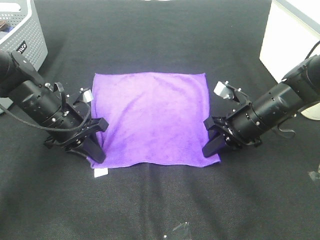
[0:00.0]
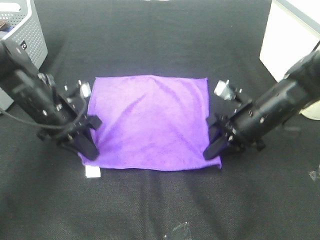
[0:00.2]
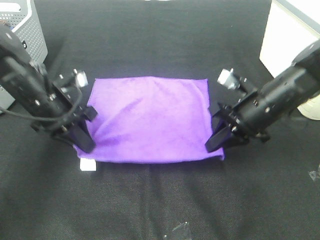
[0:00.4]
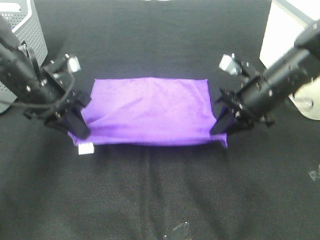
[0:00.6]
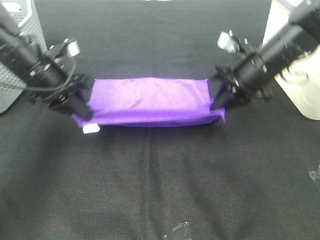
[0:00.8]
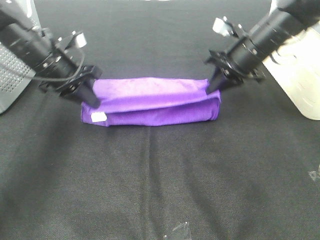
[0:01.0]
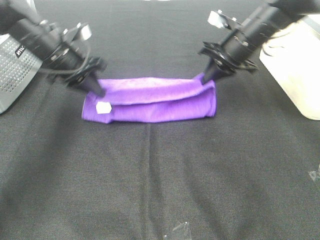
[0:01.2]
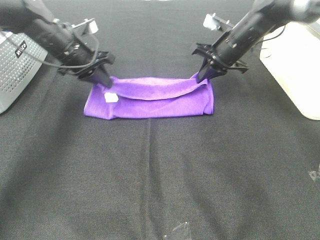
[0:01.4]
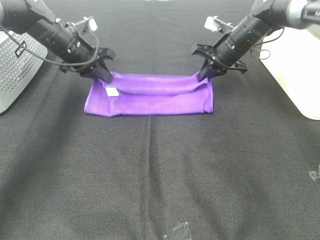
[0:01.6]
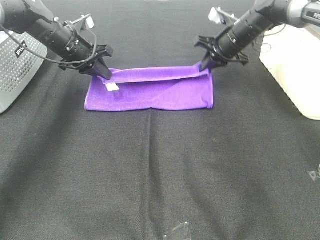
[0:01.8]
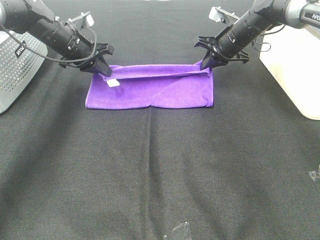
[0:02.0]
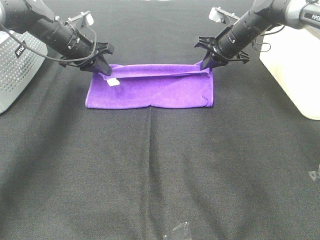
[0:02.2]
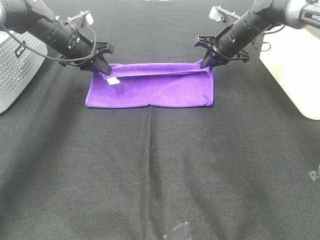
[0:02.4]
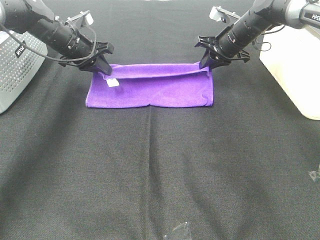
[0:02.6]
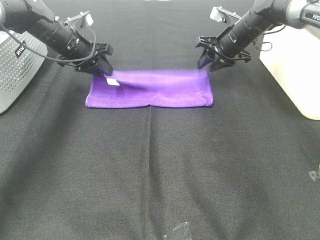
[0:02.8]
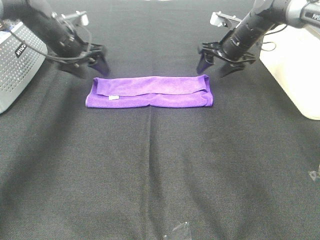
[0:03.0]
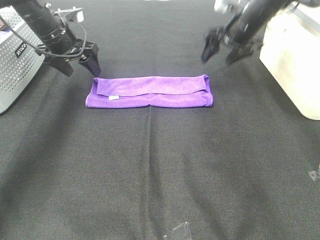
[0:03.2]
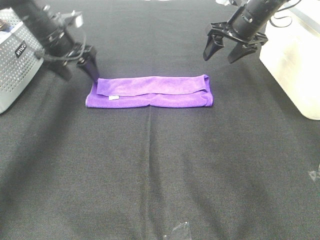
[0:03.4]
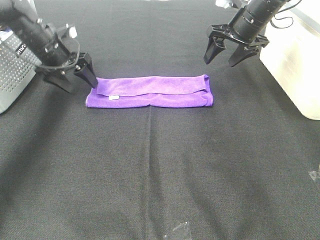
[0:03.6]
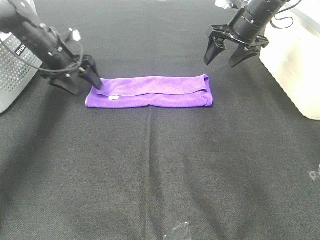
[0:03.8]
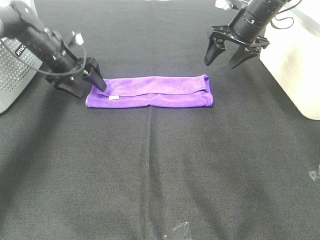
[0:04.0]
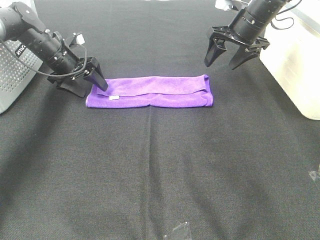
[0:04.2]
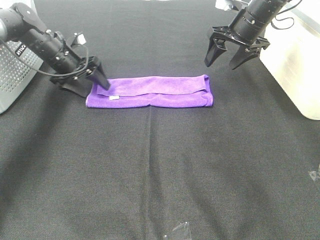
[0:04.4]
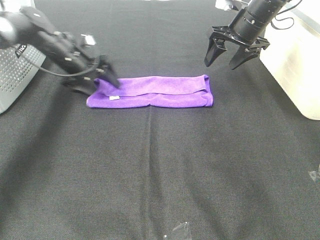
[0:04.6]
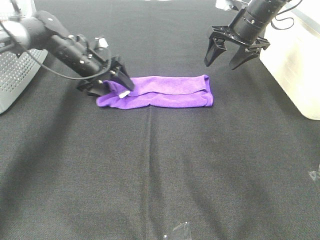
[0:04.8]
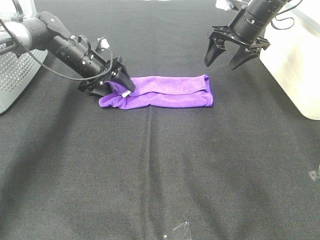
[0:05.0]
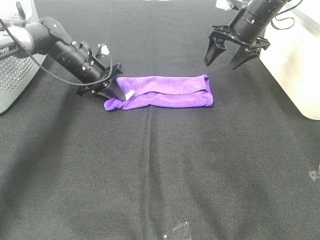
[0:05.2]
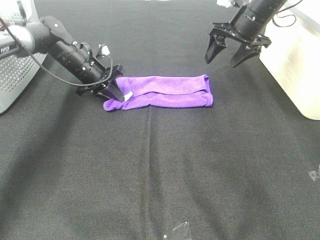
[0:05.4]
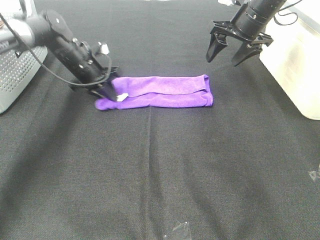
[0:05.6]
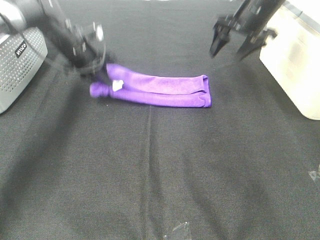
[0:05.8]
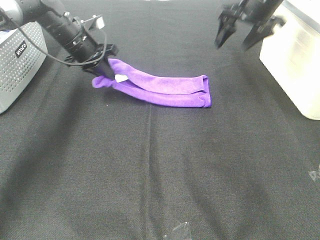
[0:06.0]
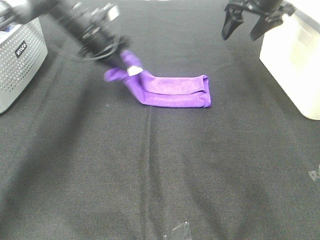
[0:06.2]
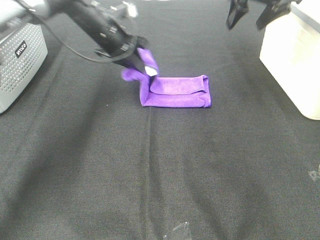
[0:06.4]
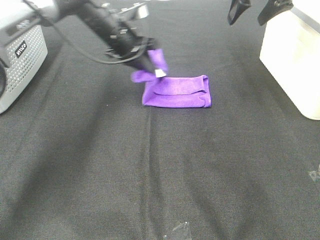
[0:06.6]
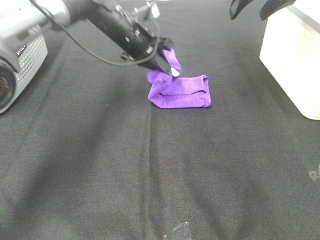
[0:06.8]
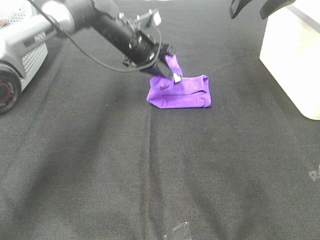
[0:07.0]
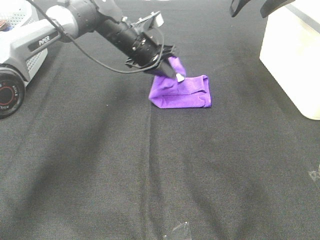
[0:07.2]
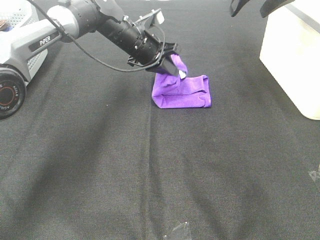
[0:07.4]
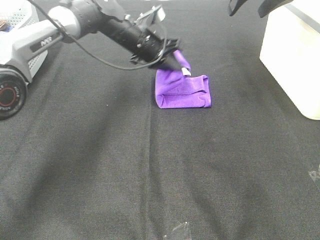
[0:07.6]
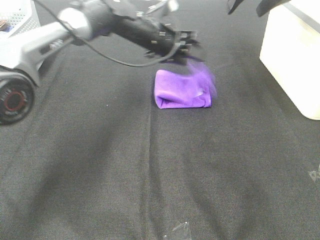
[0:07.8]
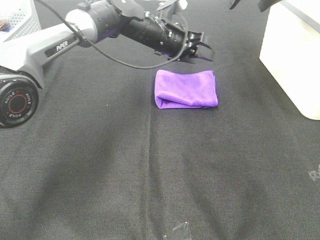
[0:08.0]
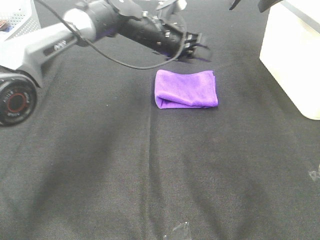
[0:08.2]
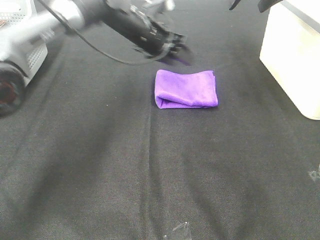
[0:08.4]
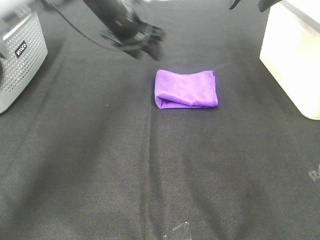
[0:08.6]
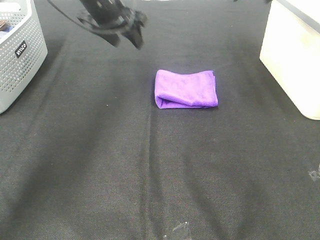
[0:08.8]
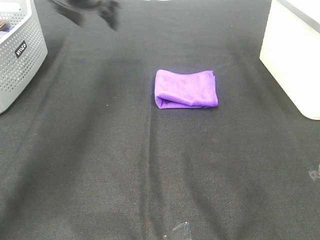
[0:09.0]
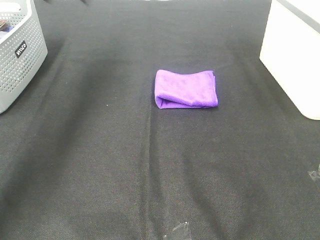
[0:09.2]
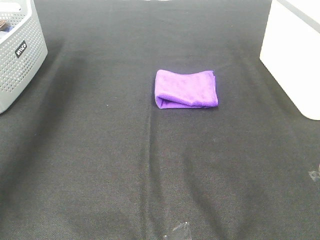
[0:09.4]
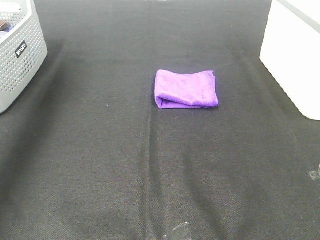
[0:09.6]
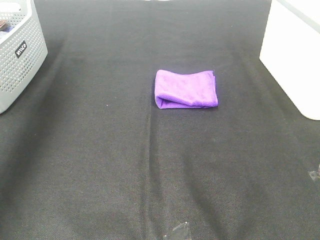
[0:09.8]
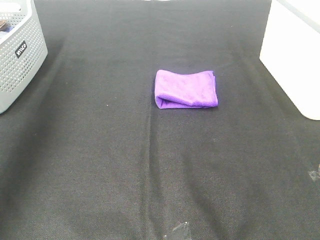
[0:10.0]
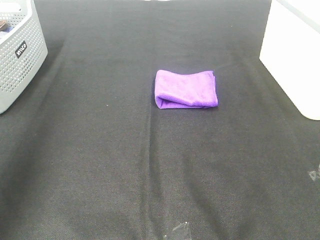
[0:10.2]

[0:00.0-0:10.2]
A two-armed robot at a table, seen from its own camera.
Task of the whole recording: Fold towels.
Step, 0:00.0 to 0:02.6: Left hand: fold the purple towel up.
Step, 0:00.0 to 0:02.6: Right hand: fold the purple towel up.
Step, 0:02.8 to 0:07.6: Left hand: fold the purple towel from left to right.
0:00.0 to 0:01.4: The right gripper shifts some 20 cm forward; the left gripper moves forward and upward, approximately 15 cm.
0:01.4 to 0:03.0: The left gripper opens its fingers. The right gripper opens up.
0:03.0 to 0:04.4: The left gripper moves downward, about 5 cm. The right gripper ends up some 5 cm from where it was.
0:04.4 to 0:05.8: The left gripper moves some 5 cm, and closes its fingers.
0:05.8 to 0:07.2: The right gripper heads upward, covering about 10 cm. The left gripper moves to the right, about 15 cm.
0:07.2 to 0:08.8: The left gripper heads upward and to the left, covering roughly 15 cm, and opens its fingers.
0:08.8 to 0:10.2: The left gripper is displaced backward, to the left and upward by about 40 cm, while the right gripper goes roughly 35 cm backward.

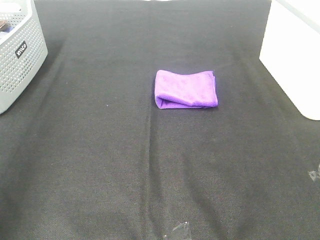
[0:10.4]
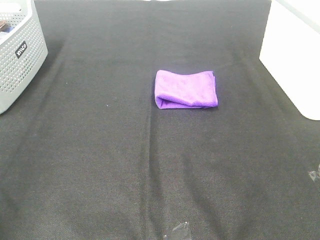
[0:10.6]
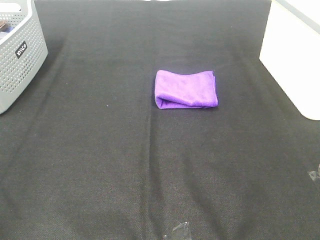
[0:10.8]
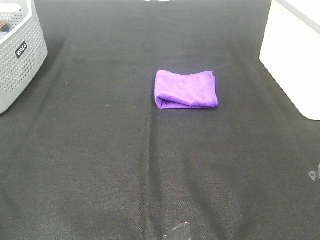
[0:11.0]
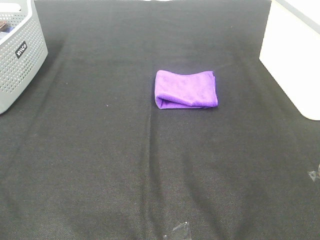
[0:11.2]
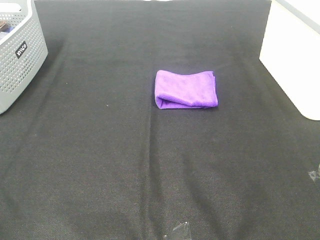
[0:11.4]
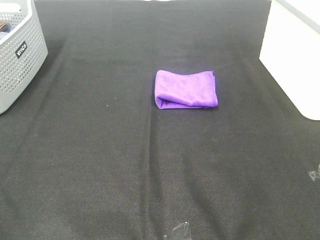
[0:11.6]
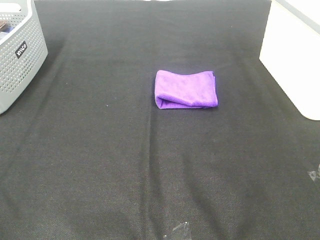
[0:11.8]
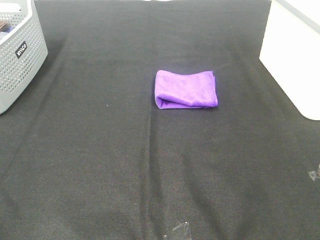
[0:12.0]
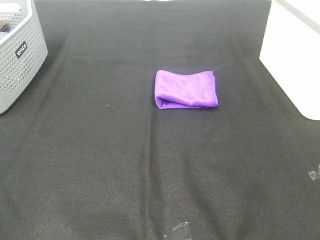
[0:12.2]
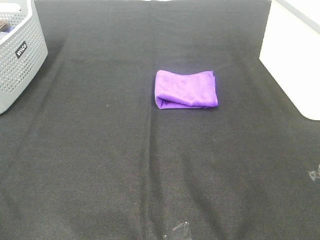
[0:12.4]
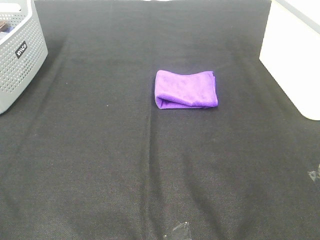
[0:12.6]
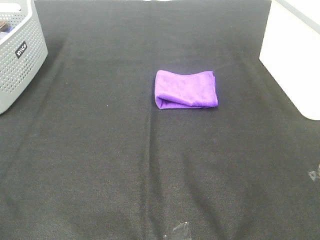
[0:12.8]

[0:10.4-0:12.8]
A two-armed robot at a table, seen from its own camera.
Task of the whole recording: Fold towels.
0:11.6 to 0:12.8: Neither gripper changes place.

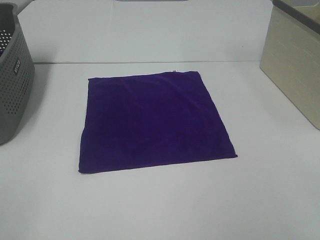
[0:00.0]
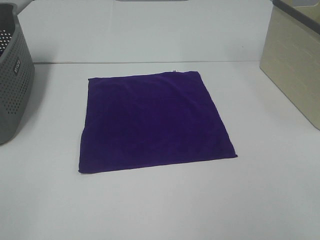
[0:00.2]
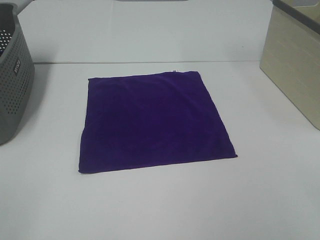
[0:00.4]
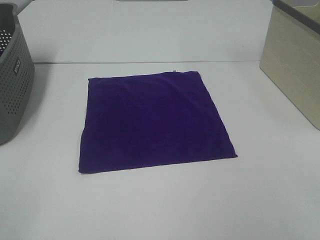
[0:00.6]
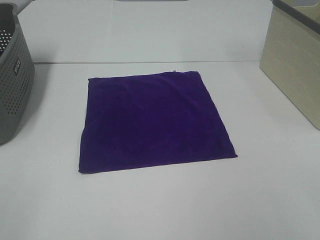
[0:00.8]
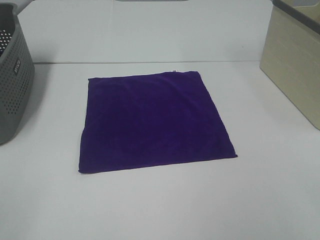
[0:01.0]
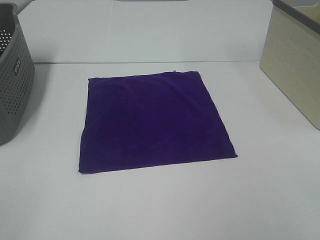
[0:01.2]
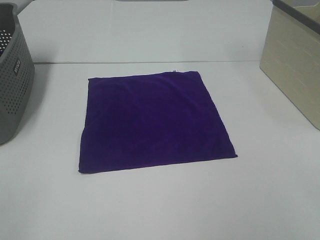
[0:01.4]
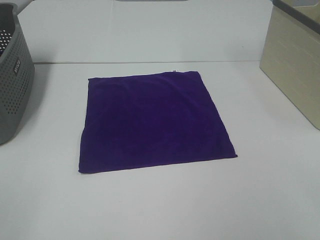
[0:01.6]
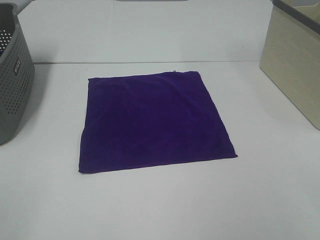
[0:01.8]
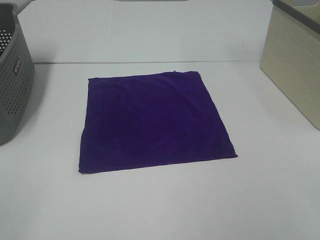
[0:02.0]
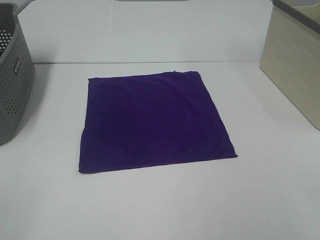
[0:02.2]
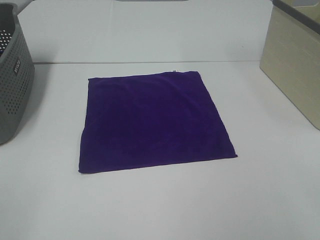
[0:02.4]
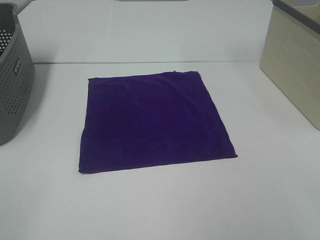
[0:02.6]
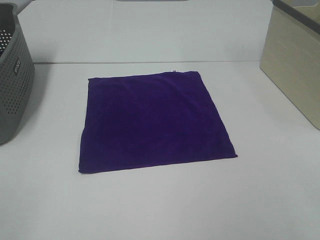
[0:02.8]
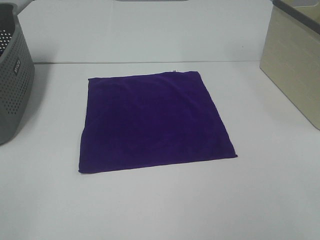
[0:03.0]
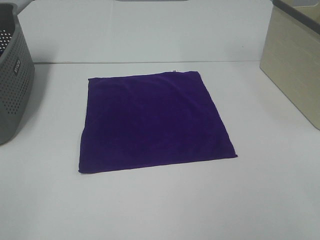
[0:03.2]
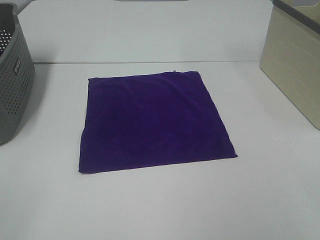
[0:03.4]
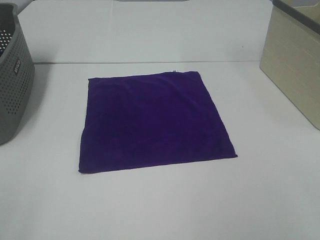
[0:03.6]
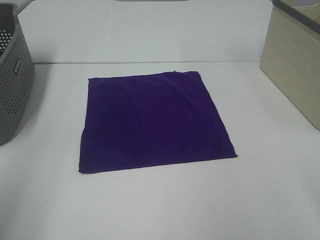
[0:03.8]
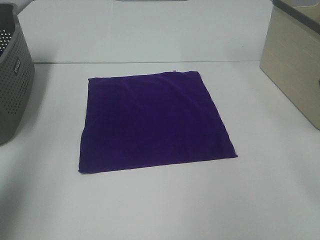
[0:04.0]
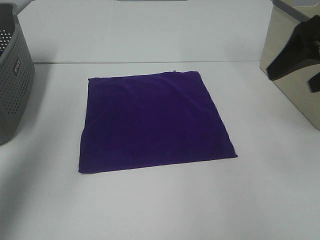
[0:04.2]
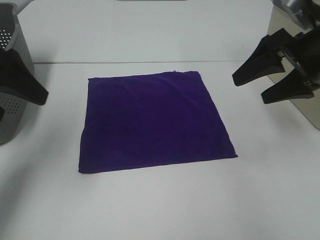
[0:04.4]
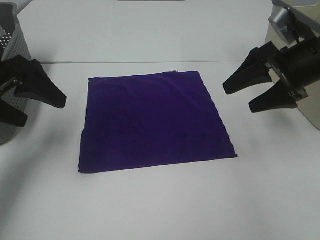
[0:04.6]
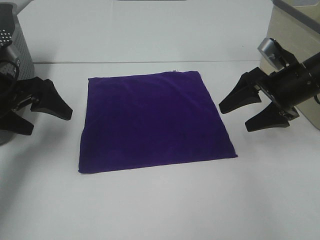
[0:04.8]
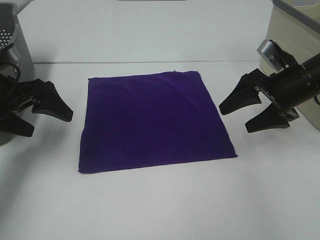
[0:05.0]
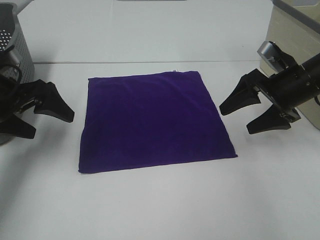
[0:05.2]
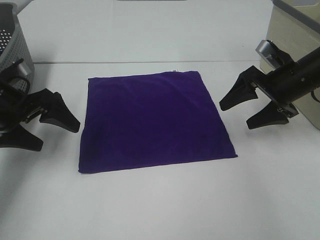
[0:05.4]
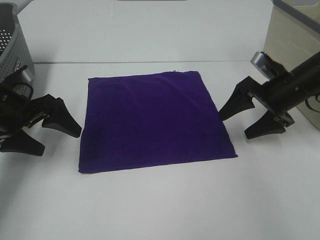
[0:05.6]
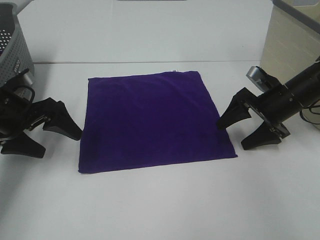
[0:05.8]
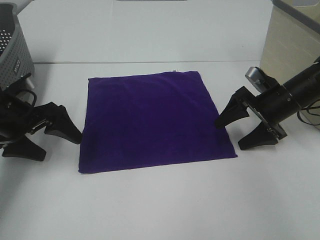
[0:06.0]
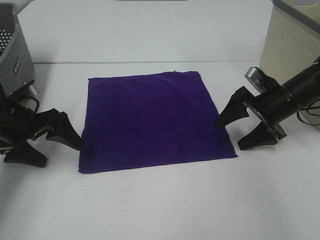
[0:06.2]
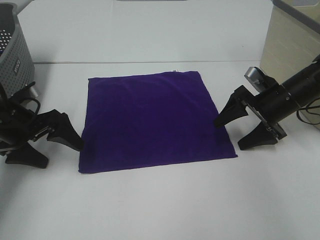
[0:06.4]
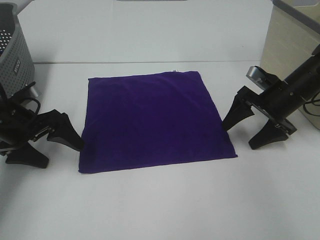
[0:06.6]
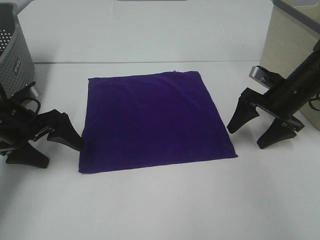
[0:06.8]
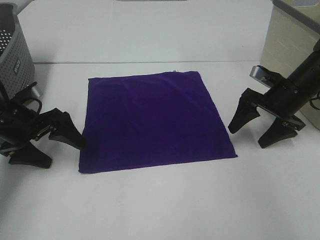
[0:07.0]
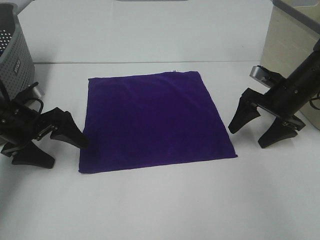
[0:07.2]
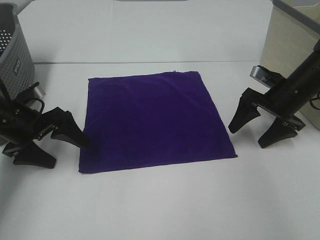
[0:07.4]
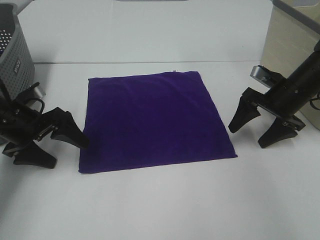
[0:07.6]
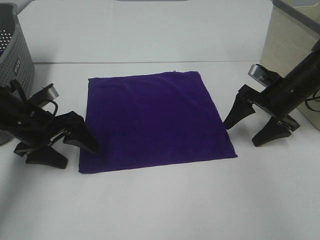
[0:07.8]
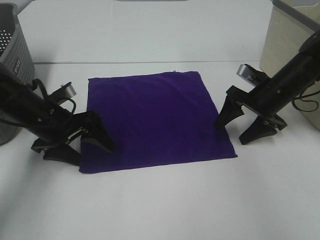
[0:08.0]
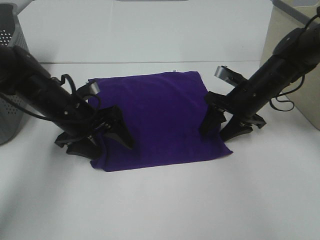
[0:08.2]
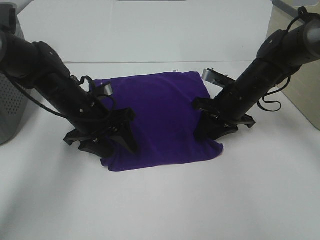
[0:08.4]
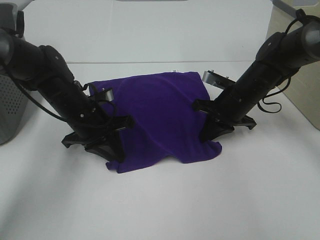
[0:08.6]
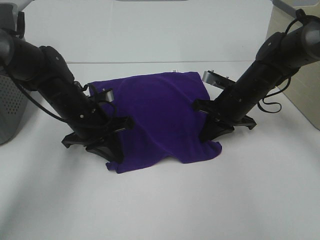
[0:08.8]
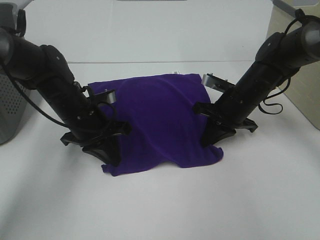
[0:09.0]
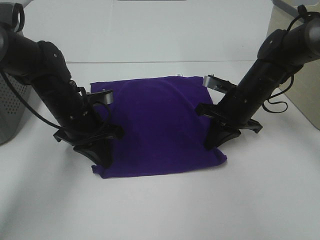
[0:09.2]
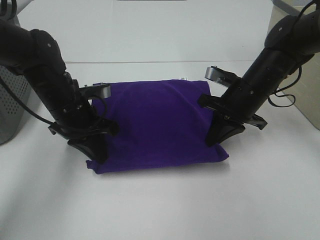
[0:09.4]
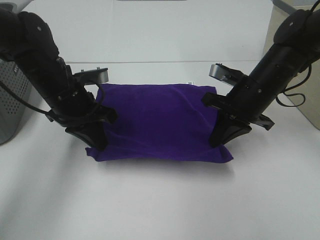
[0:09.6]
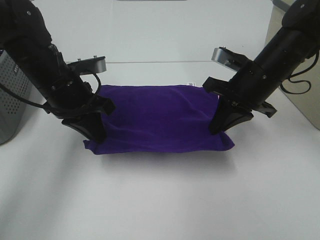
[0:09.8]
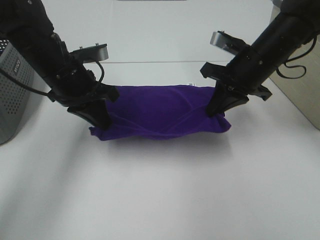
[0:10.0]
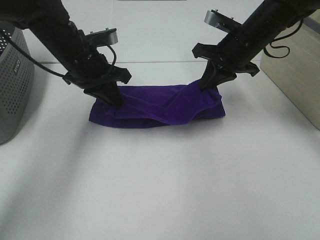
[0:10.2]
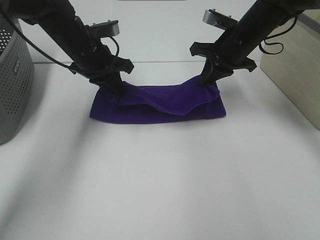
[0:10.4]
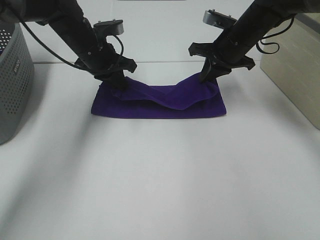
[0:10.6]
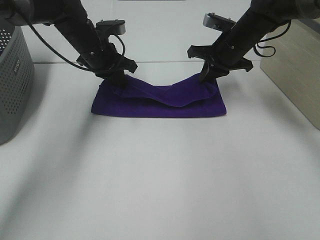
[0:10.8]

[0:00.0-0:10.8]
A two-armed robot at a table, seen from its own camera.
Task of the whole recording: Fold towels.
Step, 0:00.0 to 0:08.8: Left hand: grab the bottom left corner of purple towel.
Step, 0:00.0 to 0:08.8: Right hand: grab the bottom right corner of purple towel.
0:00.0 to 0:03.0: Neither gripper changes place.
0:03.0 to 0:04.6: Both grippers travel together forward, roughly 30 cm.
0:04.6 to 0:06.2: The grippers both shift downward by approximately 10 cm.
0:06.2 to 0:07.8: The grippers stay close to where they were, moving slightly.
0:07.8 to 0:09.2: The right gripper goes about 10 cm to the left, and closes. The left gripper travels to the right by approximately 10 cm, and closes.
0:09.2 to 0:10.8: Both grippers travel together forward and upward, about 15 cm.
